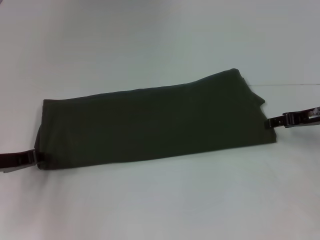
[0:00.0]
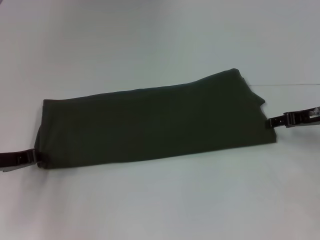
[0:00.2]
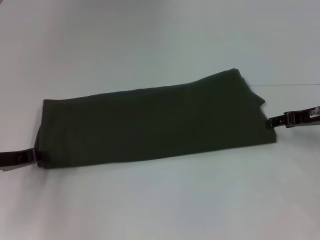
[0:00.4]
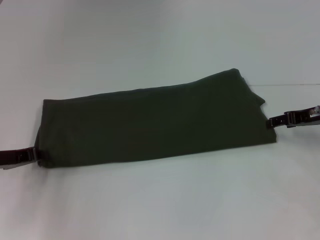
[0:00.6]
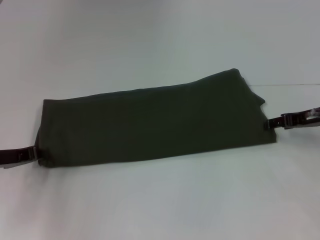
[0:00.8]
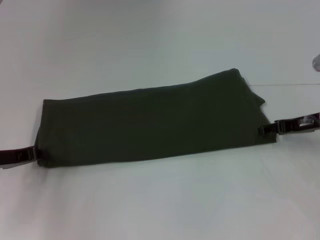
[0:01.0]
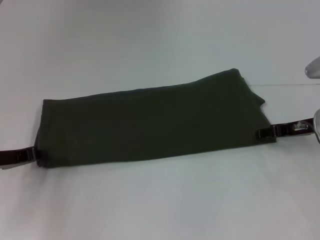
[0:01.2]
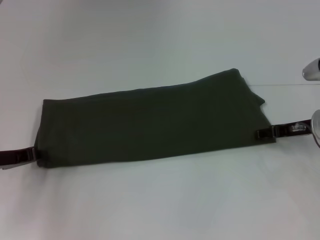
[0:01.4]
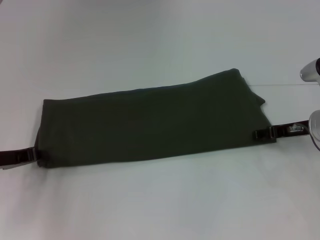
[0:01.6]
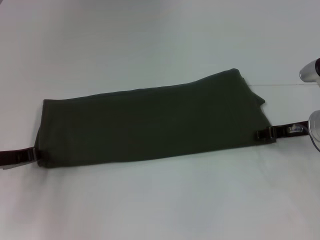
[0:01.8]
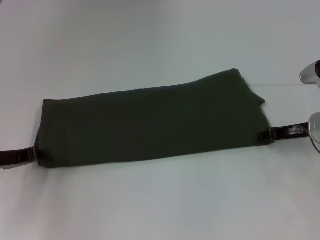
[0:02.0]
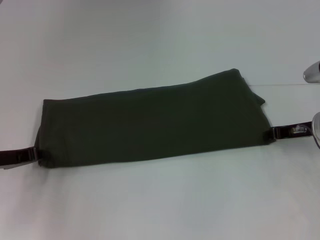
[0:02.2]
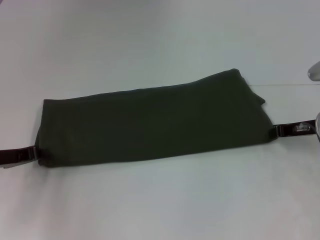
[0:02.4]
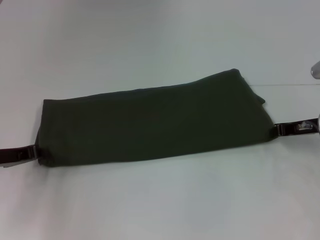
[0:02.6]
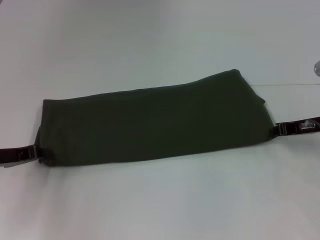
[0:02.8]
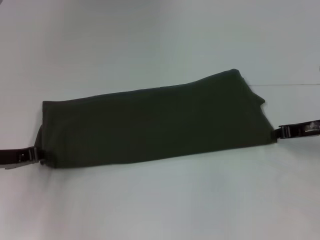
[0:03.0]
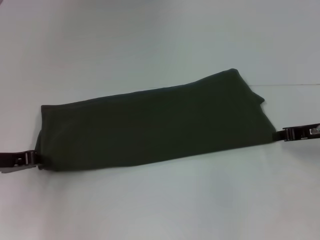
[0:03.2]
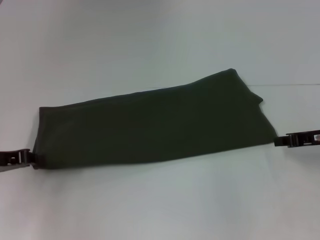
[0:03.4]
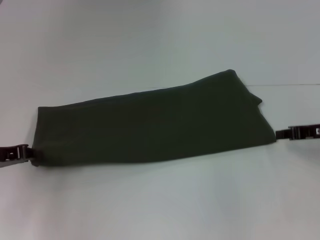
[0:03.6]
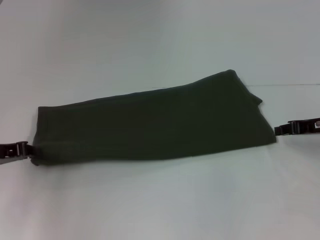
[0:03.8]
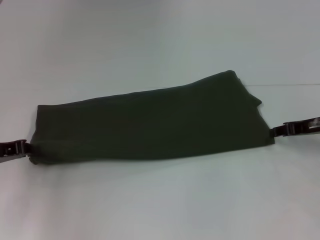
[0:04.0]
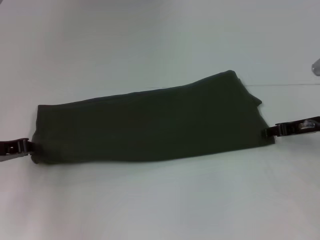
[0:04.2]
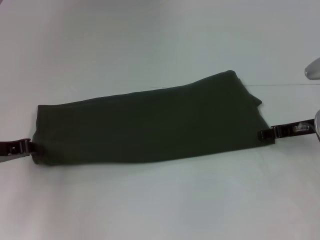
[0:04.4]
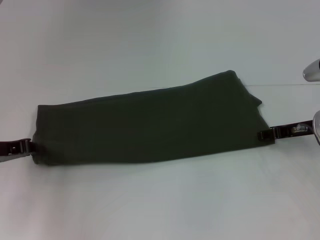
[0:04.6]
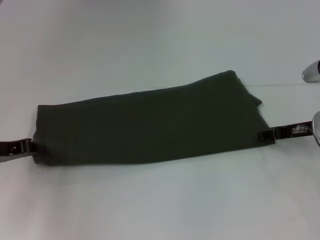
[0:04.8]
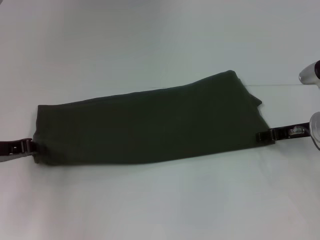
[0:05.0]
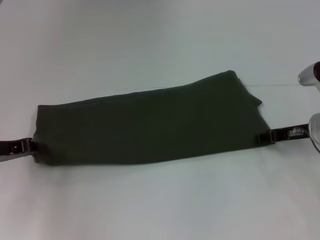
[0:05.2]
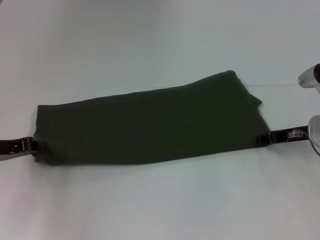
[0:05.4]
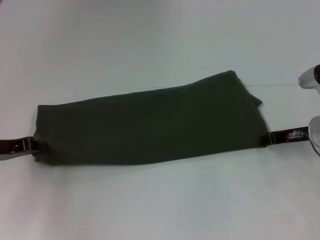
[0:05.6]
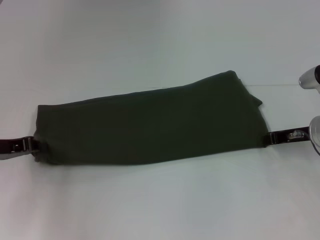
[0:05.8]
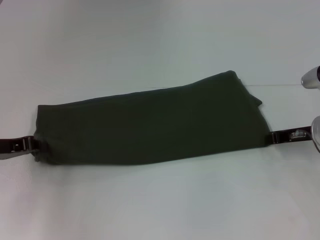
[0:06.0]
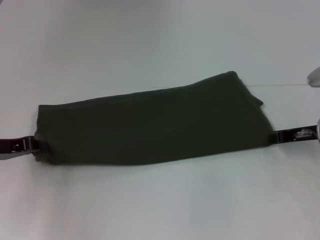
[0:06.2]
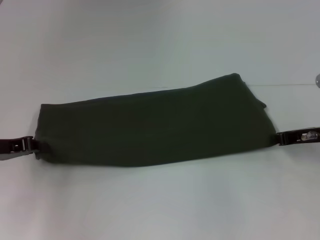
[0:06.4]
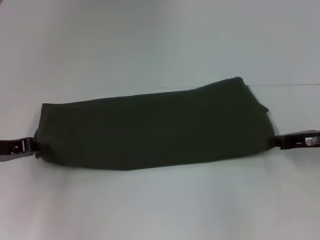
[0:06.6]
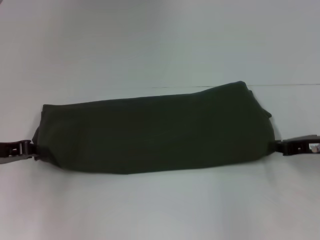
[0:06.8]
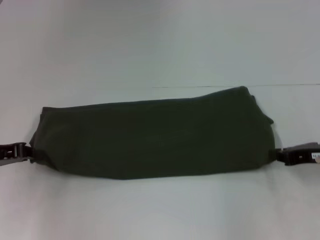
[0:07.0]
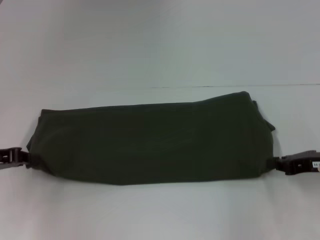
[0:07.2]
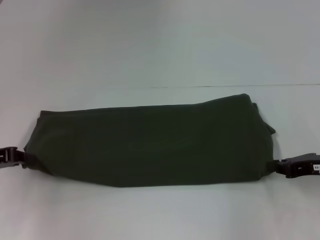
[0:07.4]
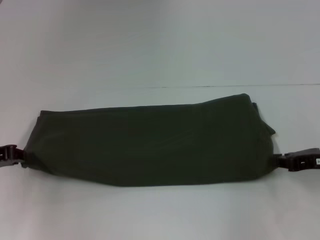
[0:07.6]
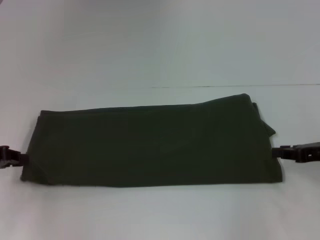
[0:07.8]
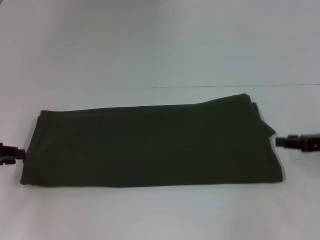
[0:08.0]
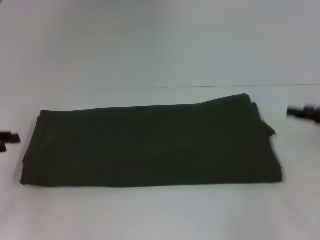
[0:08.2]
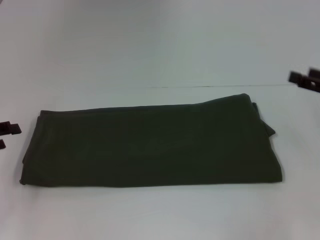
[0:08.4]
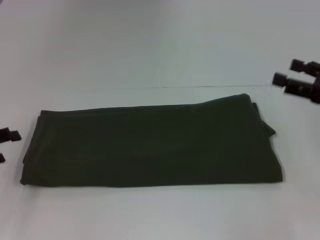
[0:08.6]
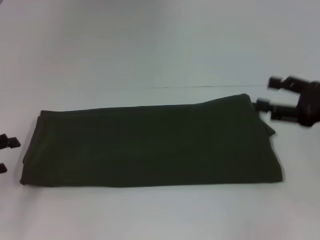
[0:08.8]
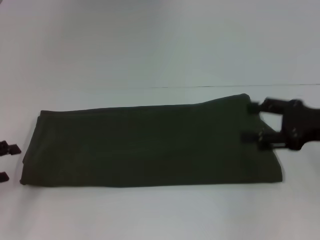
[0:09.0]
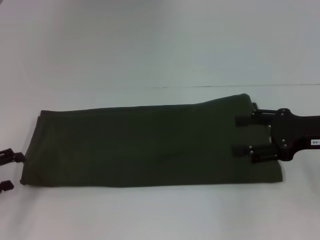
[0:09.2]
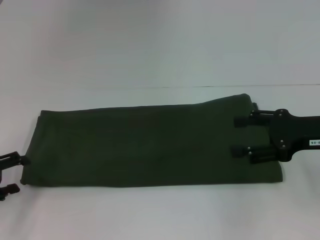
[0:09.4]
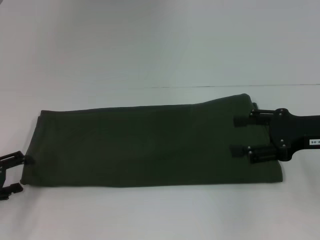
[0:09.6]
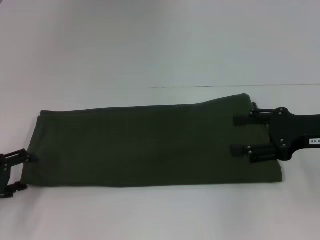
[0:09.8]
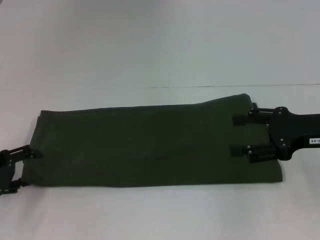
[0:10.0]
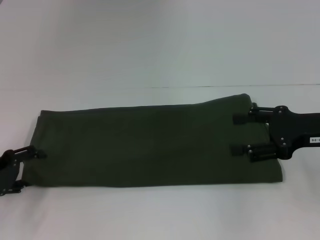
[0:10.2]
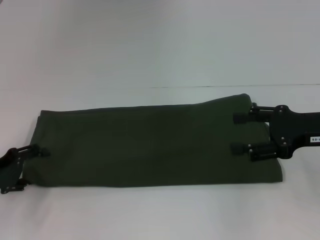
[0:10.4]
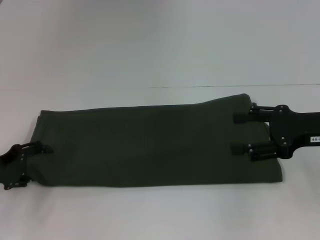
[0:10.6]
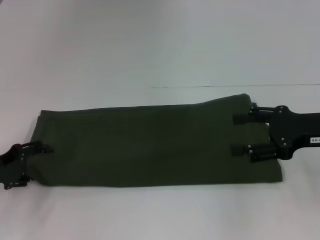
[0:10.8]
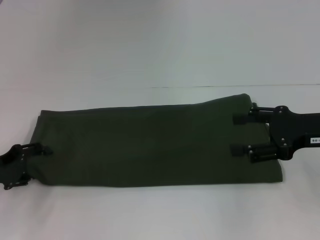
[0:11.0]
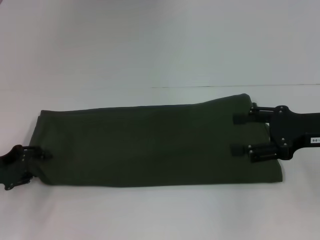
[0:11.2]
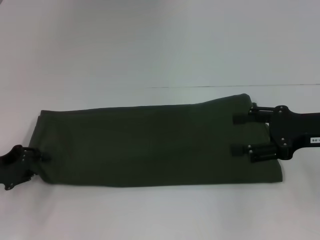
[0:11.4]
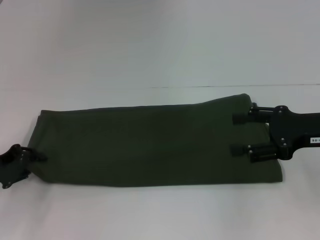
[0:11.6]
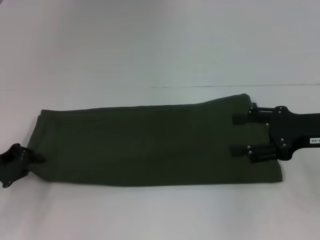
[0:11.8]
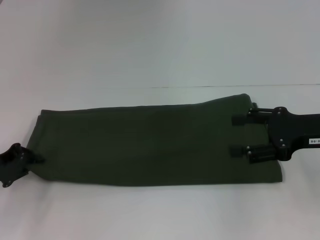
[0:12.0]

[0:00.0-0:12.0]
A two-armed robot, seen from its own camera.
0:00.0 to 0:01.6: The left gripper closes.
0:01.6 to 0:03.0: The right gripper closes up.
0:03.0 to 0:04.4: The right gripper opens.
0:04.4 to 0:06.0: The right gripper closes.
0:06.0 to 0:07.6: The right gripper heads backward, covering approximately 5 cm.
0:07.6 to 0:09.0: The left gripper changes place by approximately 5 cm, and opens. The right gripper heads upward, covering some 5 cm, and opens up.
0:09.0 to 0:10.4: The left gripper ends up some 5 cm from where it was.
0:10.4 to 0:12.0: The left gripper closes.

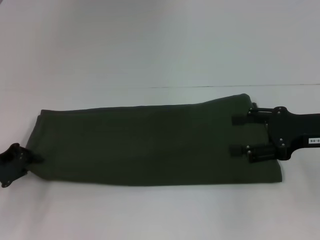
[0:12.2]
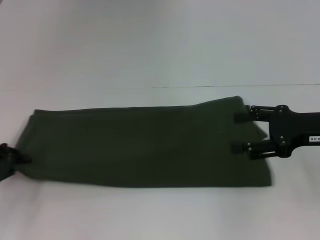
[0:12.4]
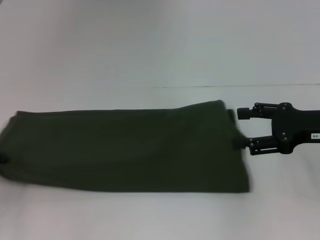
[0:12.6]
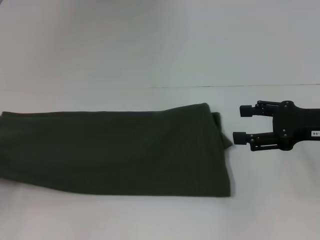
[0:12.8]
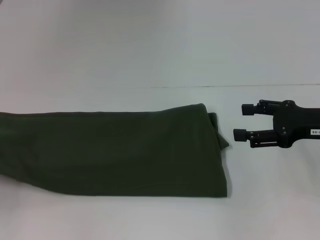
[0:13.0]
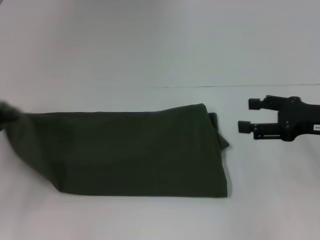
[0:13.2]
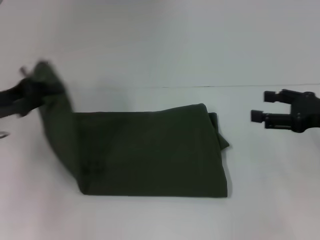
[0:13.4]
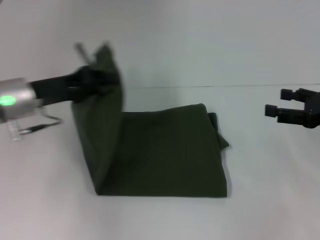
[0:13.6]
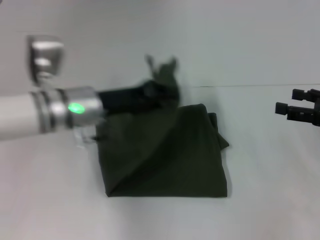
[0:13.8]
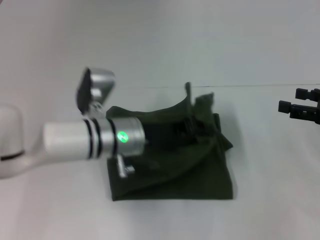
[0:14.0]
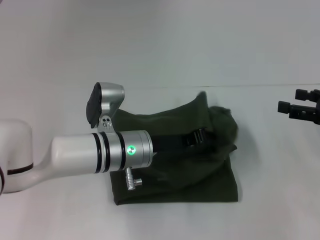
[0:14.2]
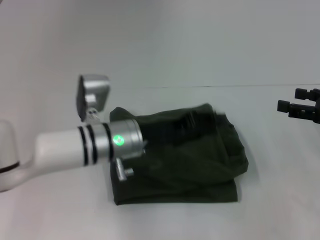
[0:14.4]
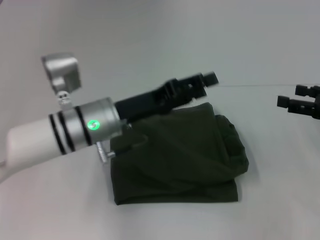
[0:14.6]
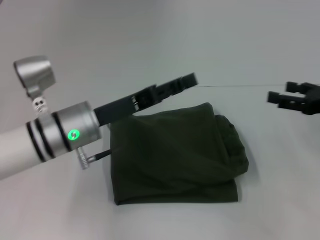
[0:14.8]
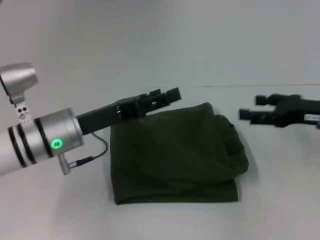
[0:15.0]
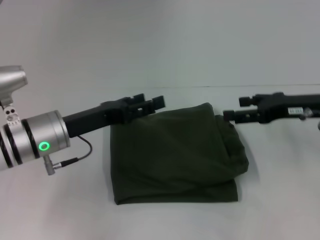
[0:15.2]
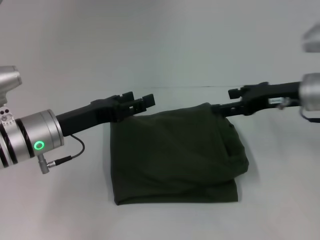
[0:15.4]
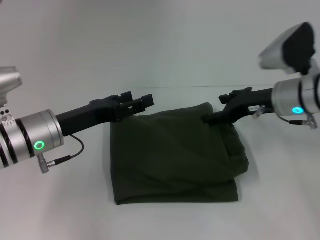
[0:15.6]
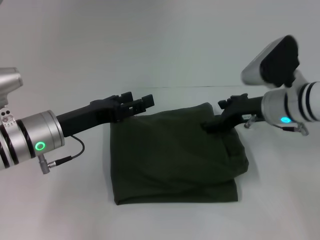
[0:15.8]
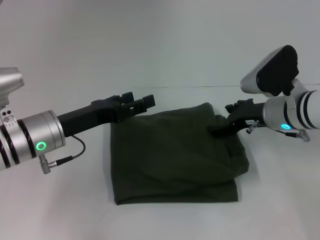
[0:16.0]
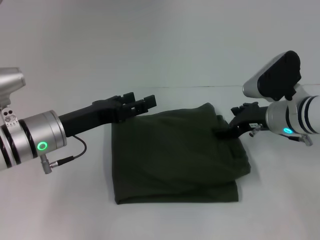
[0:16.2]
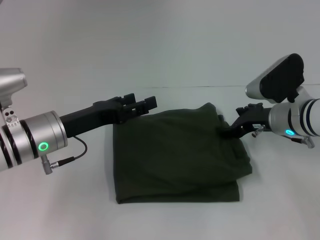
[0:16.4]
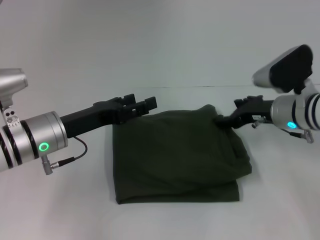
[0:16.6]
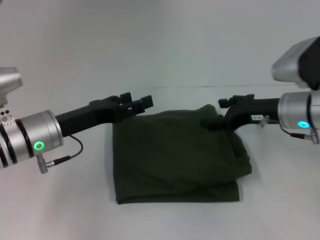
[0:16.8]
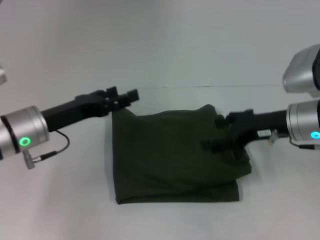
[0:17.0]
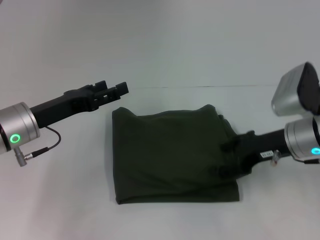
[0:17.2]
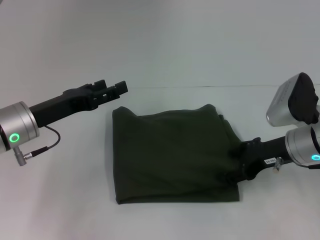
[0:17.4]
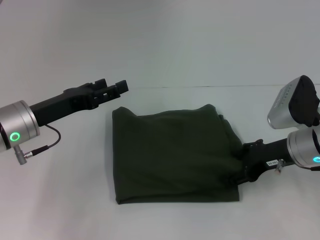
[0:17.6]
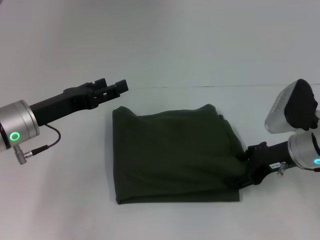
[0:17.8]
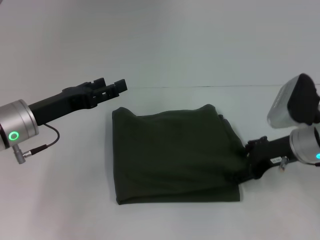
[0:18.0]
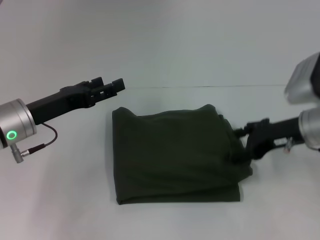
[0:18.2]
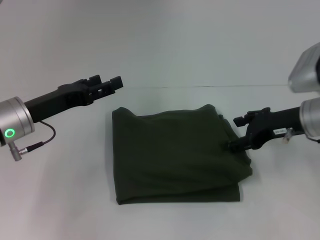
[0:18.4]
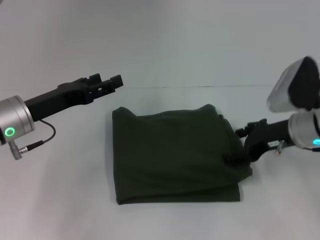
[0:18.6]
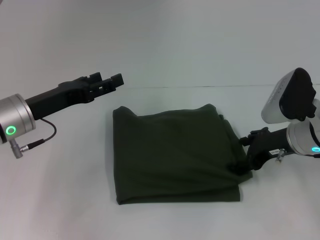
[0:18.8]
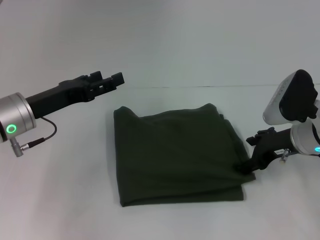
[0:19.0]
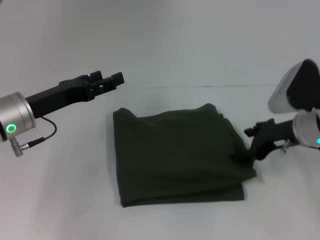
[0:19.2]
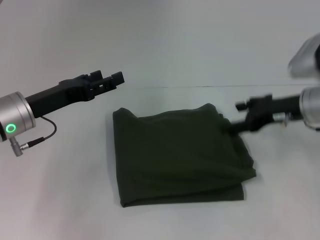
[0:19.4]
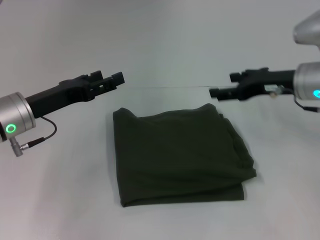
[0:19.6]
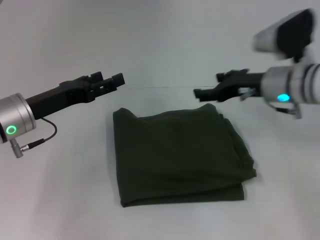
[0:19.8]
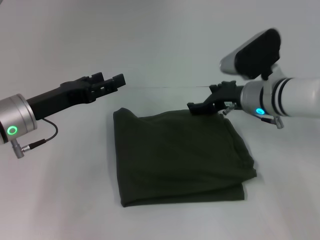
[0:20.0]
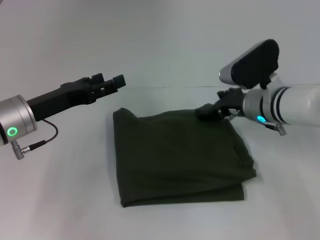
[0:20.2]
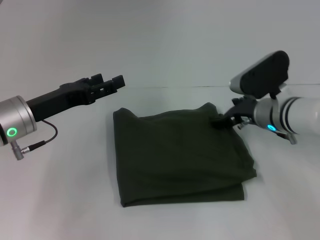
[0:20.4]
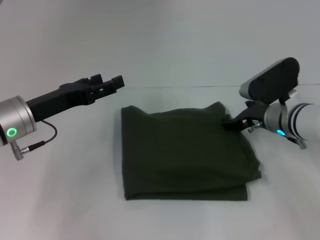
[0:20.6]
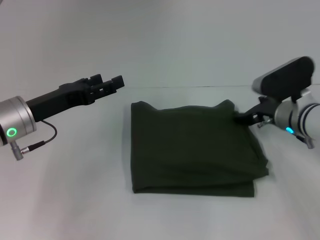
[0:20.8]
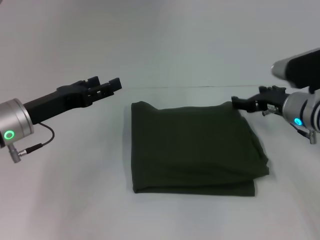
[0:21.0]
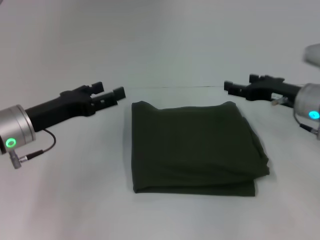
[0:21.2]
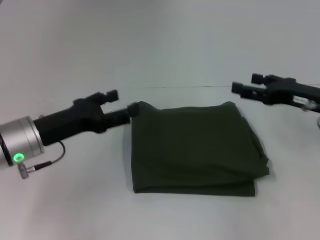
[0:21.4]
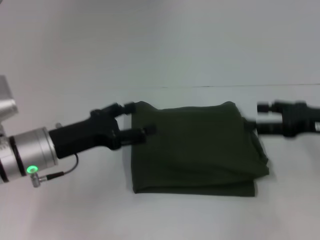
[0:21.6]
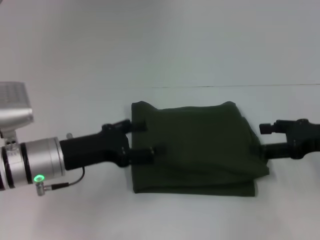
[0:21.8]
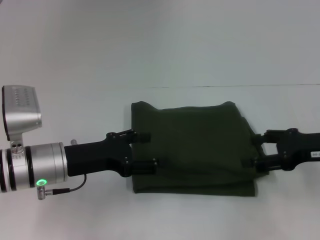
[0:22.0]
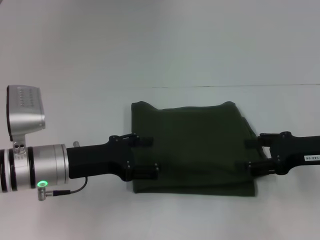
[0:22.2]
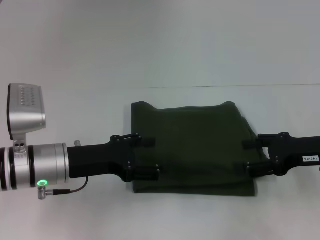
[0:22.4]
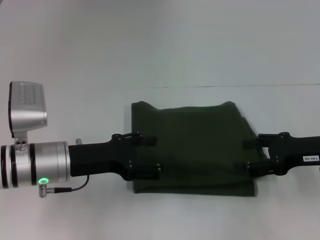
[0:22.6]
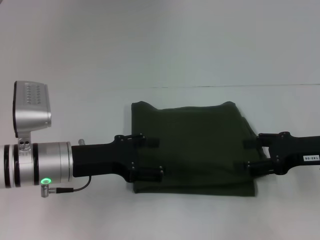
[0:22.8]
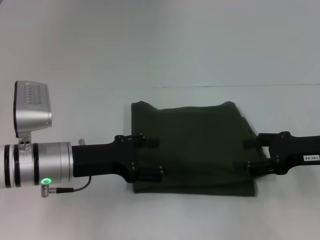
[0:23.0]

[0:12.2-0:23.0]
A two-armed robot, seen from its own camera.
Step, 0:12.2 to 0:14.4: Fold the clothes with your left hand.
0:12.2 to 0:13.8: The left gripper travels to the right by about 20 cm; the right gripper goes roughly 5 cm to the right.
0:13.8 to 0:15.2: The left gripper changes place by approximately 5 cm, and opens up; the right gripper goes roughly 10 cm to the left.
0:15.2 to 0:16.8: The right gripper moves to the left, roughly 5 cm.
0:18.4 to 0:20.0: The right gripper heads to the left, covering about 10 cm.
0:20.0 to 0:21.4: The right gripper travels to the right and backward by about 15 cm.
